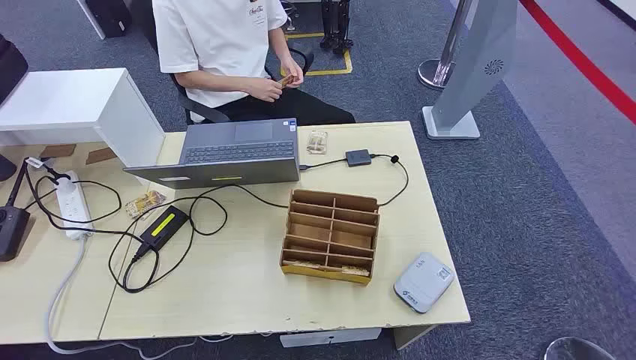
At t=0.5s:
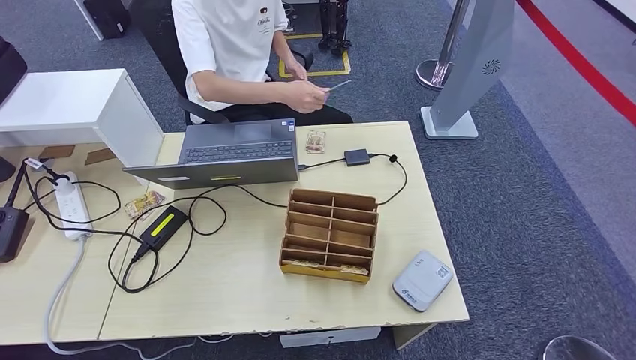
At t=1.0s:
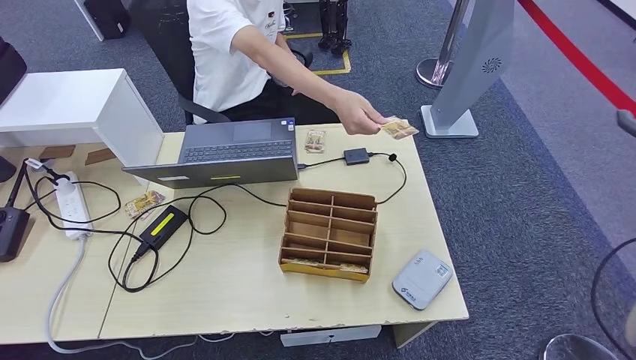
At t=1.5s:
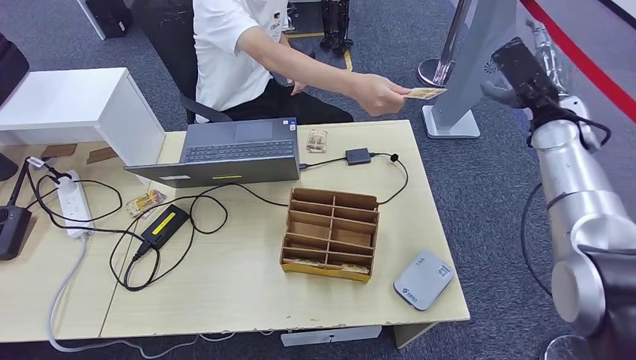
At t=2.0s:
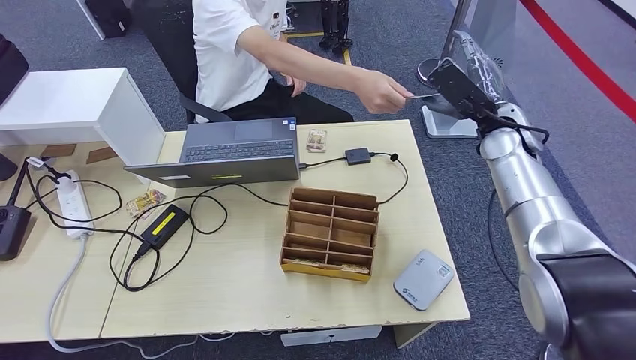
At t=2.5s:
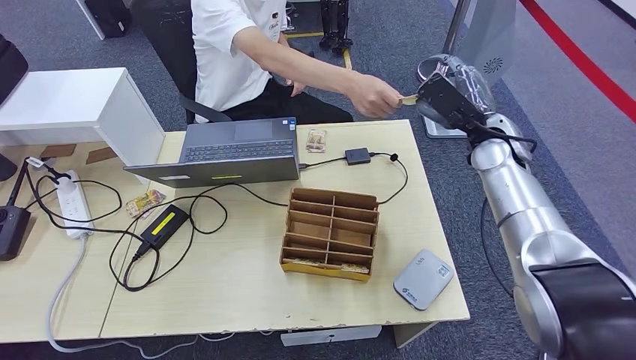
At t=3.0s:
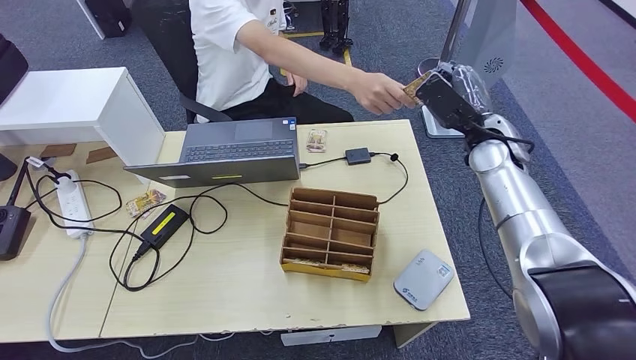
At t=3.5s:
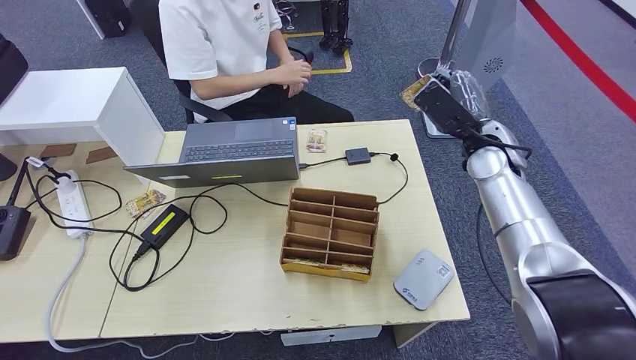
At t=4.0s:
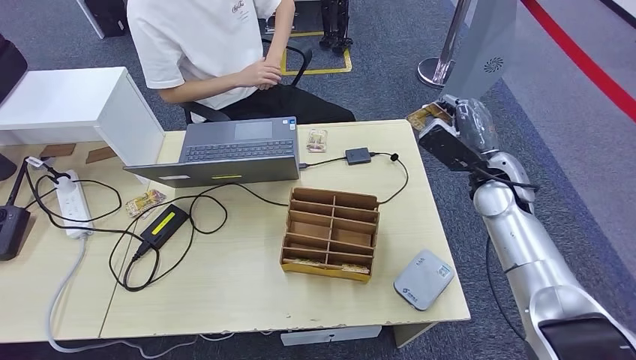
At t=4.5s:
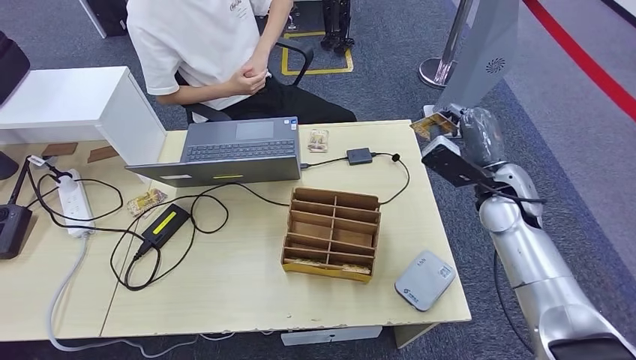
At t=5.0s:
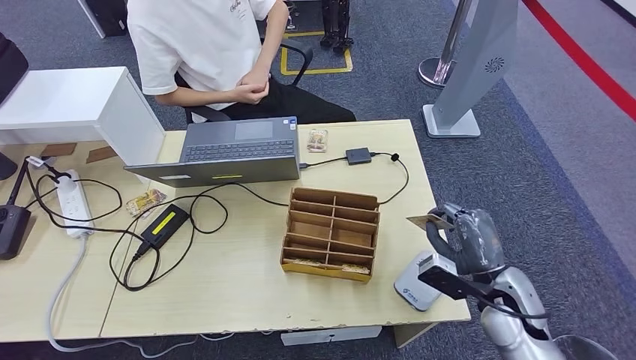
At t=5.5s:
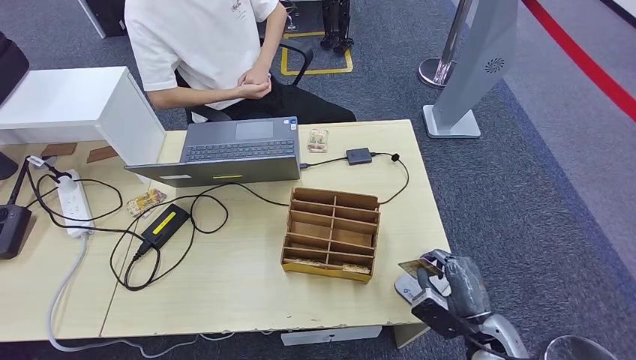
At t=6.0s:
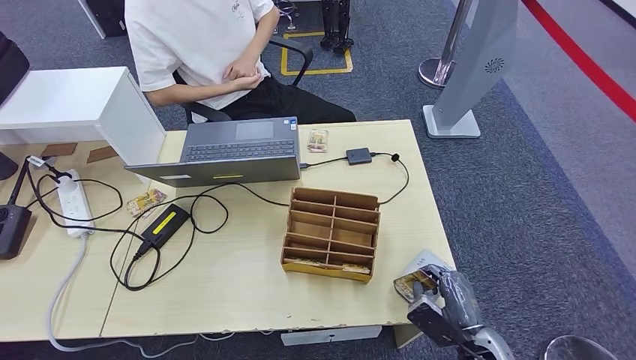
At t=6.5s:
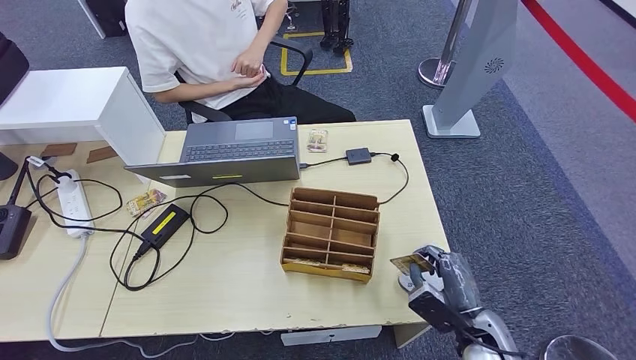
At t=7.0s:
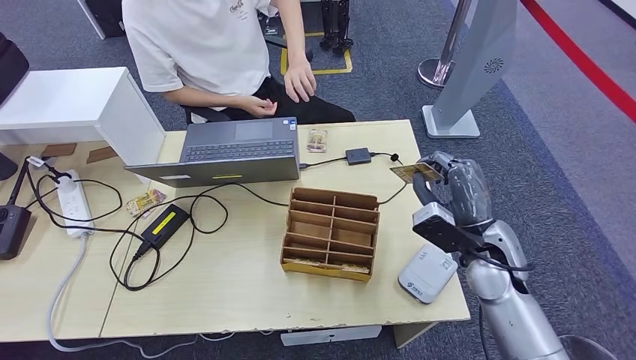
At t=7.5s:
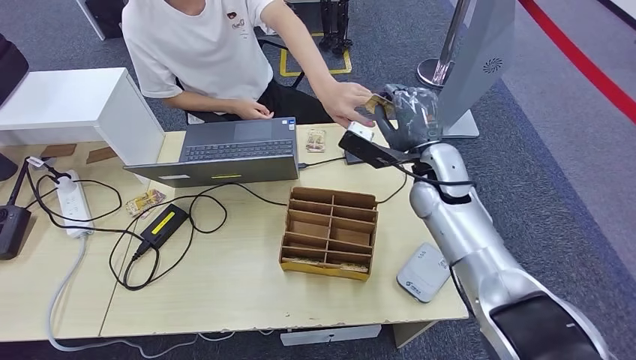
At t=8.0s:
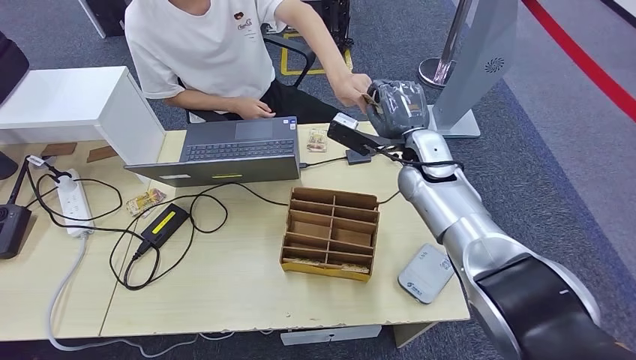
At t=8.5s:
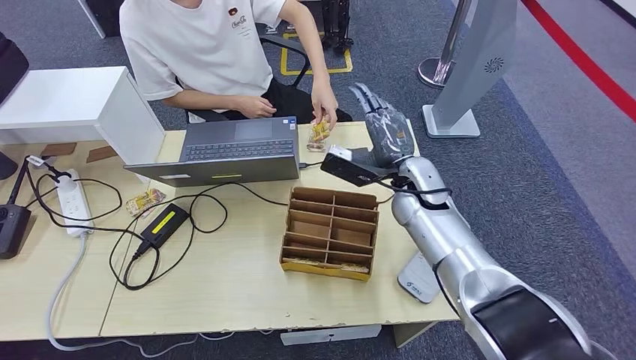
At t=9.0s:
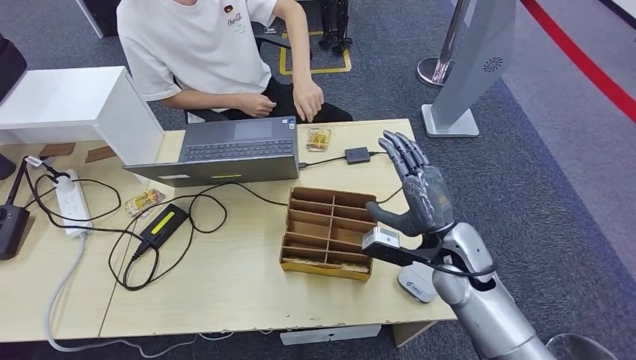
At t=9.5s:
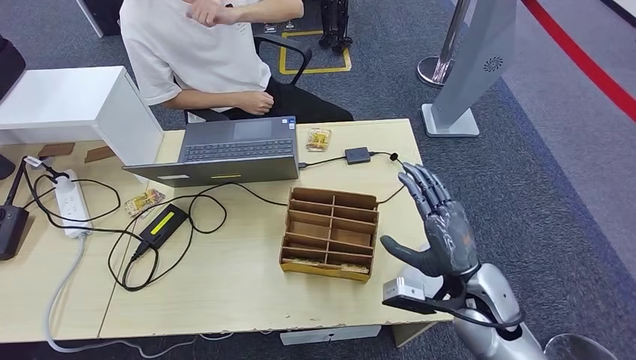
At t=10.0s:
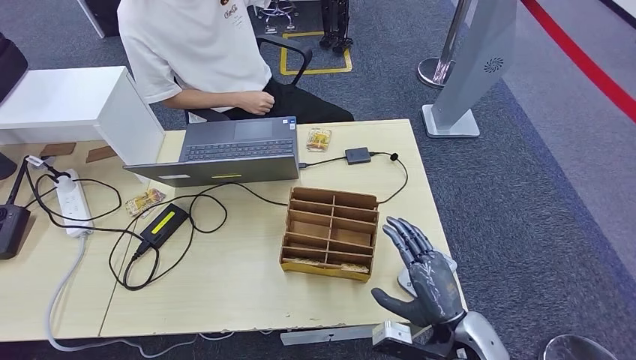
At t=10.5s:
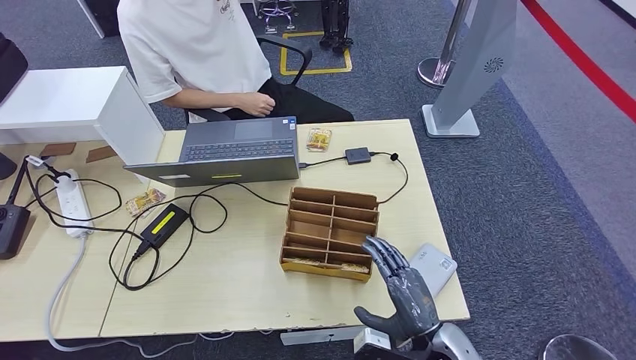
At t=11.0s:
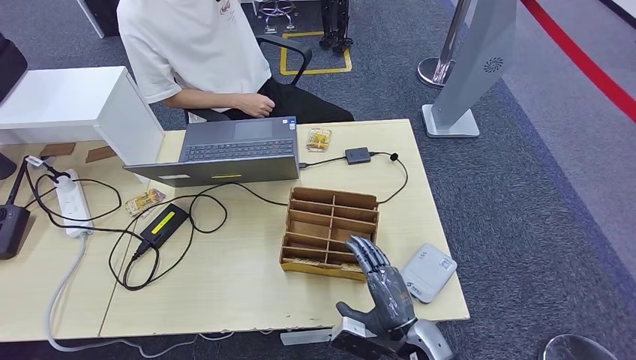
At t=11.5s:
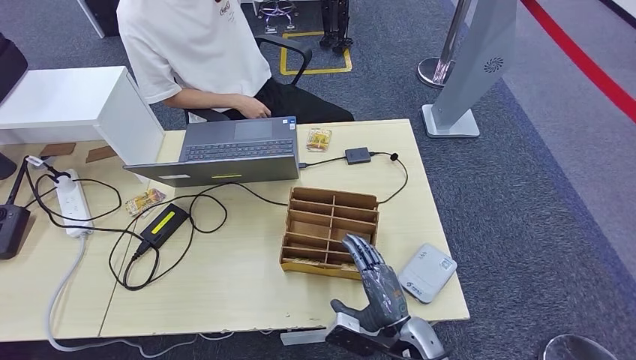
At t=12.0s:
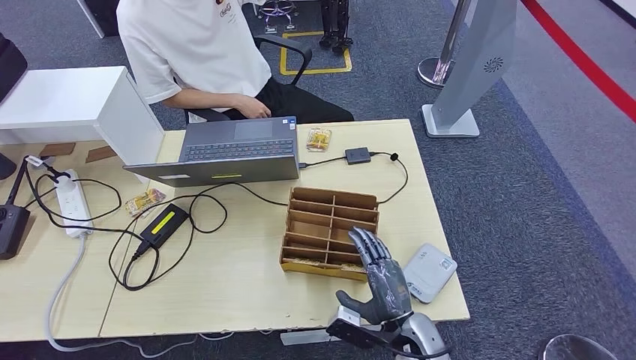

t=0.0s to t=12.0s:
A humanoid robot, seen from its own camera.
Step, t=0.0s to t=2.5s: Take the ID card from the person's hand.
Step, t=3.0s to t=6.5s: Place the ID card on the card reader.
Step, t=7.0s to t=8.0s: Hand the ID card to the person.
t=2.0s to t=4.0s: The right hand goes approximately 10 cm backward and downward.
t=4.0s to t=6.0s: The right hand shifts some 30 cm backward and downward.
t=6.0s to t=8.0s: The left hand moves forward, some 5 cm, while the right hand heads forward and upward, covering approximately 35 cm.
t=8.0s to t=10.0s: The right hand heads backward and downward, covering roughly 30 cm.
t=10.0s to t=12.0s: The right hand goes approximately 10 cm to the left and downward.

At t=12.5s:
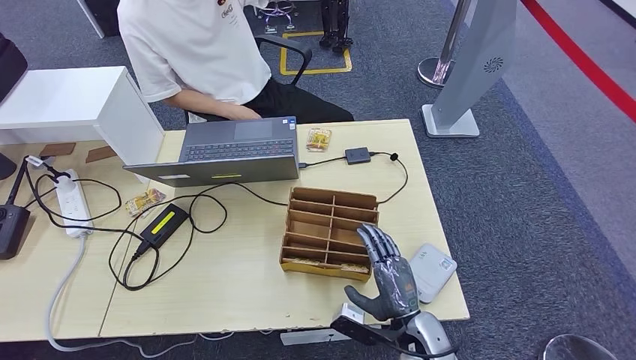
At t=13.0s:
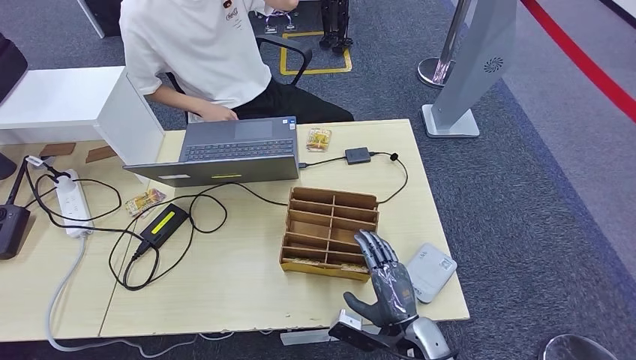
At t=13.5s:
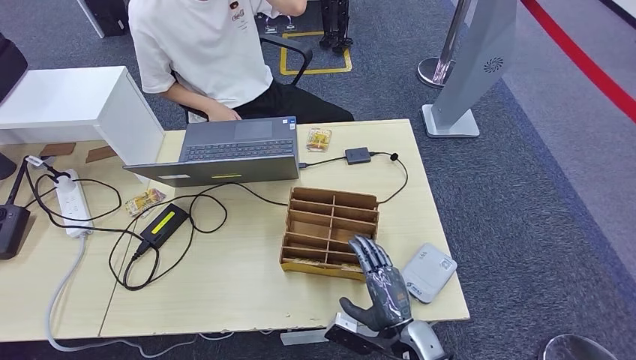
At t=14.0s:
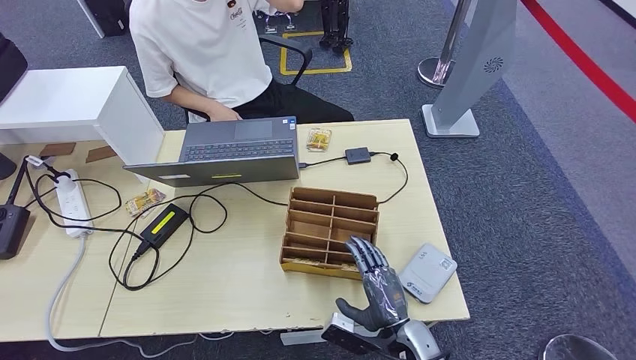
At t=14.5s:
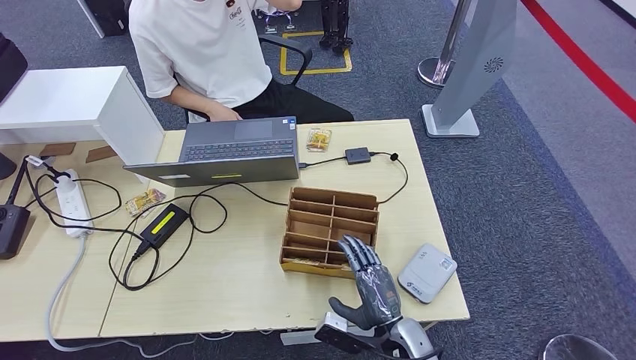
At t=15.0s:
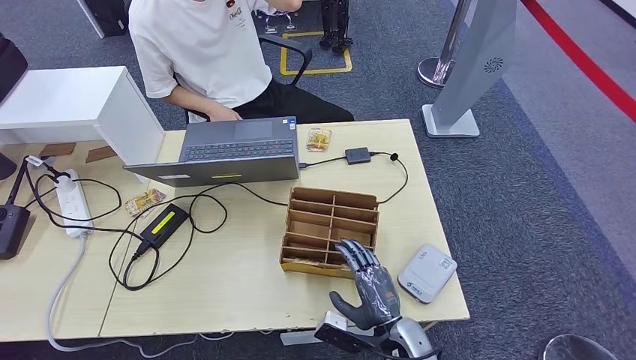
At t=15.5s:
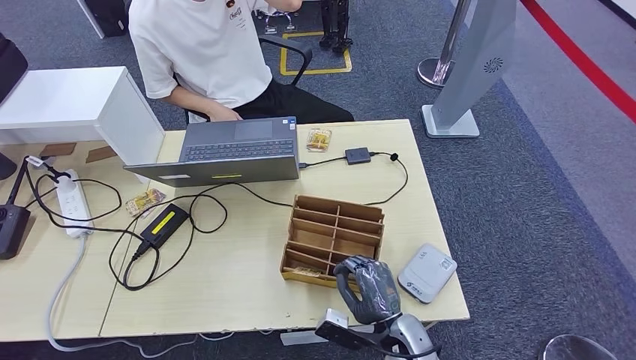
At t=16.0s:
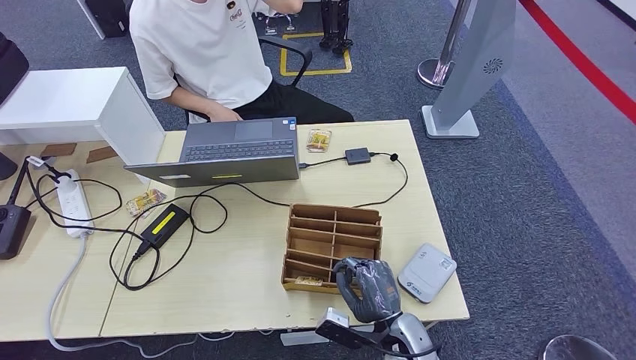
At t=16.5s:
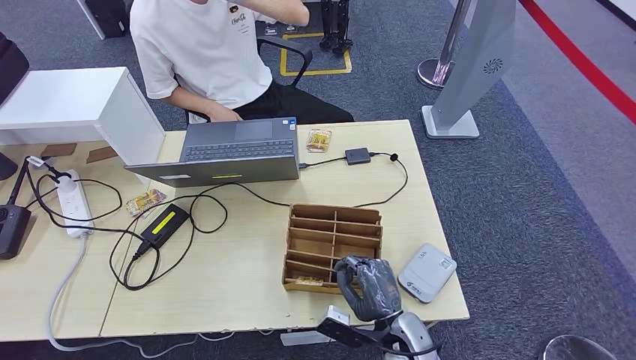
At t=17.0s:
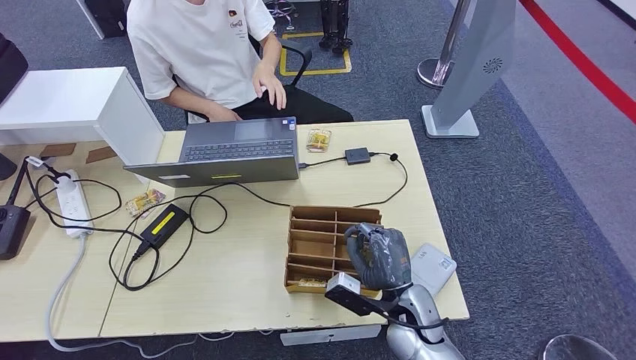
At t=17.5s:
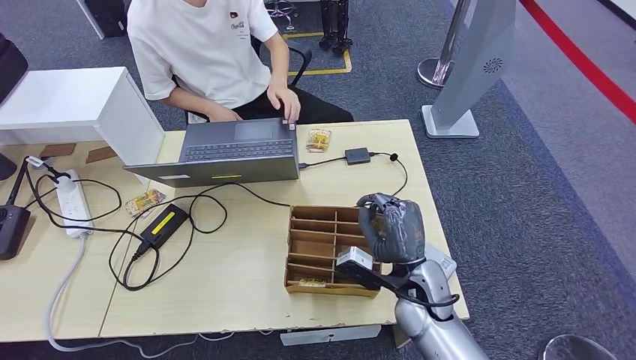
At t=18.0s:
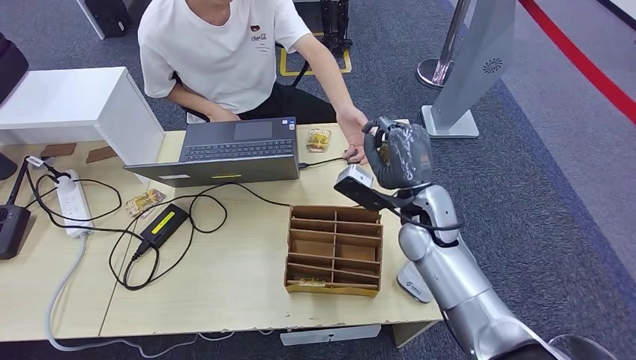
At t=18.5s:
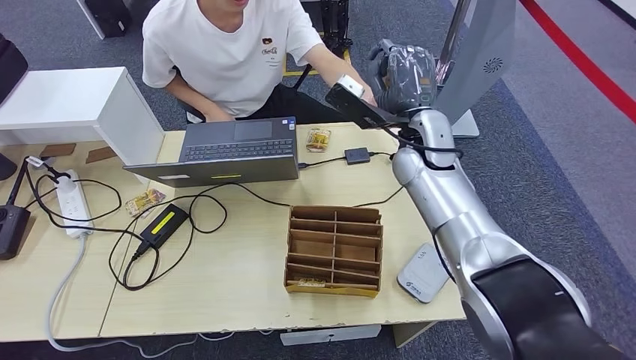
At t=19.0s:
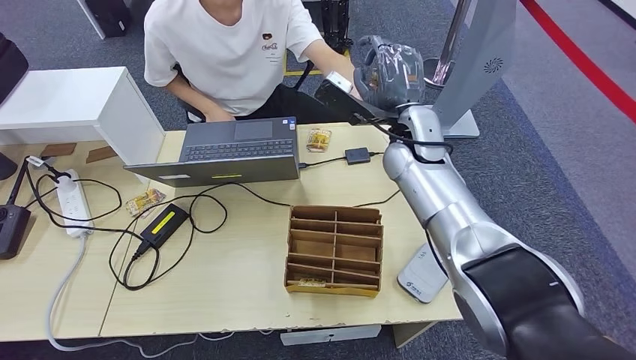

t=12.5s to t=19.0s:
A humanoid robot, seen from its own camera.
Step, t=12.5s to t=17.5s: Pick up the room key from the key card box.
Step, t=18.0s to t=19.0s: Hand the room key to the person.
t=12.5s to t=14.5s: The hands make only small movements.
t=14.5s to t=17.0s: The right hand shifts about 5 cm forward and upward.
t=17.0s to t=19.0s: The right hand heads upward and forward, covering about 30 cm.

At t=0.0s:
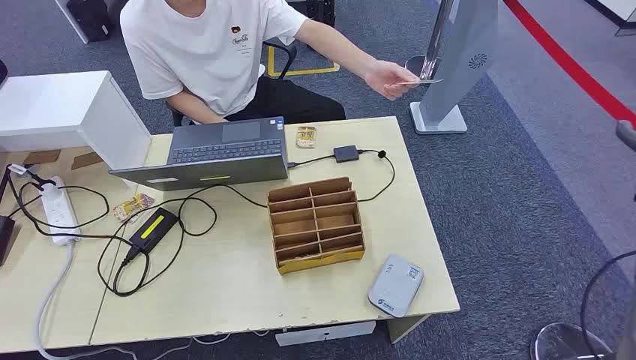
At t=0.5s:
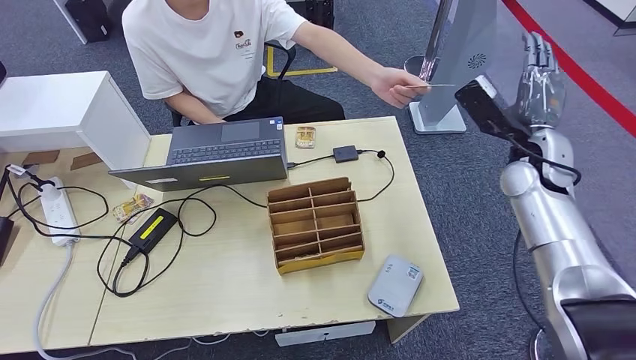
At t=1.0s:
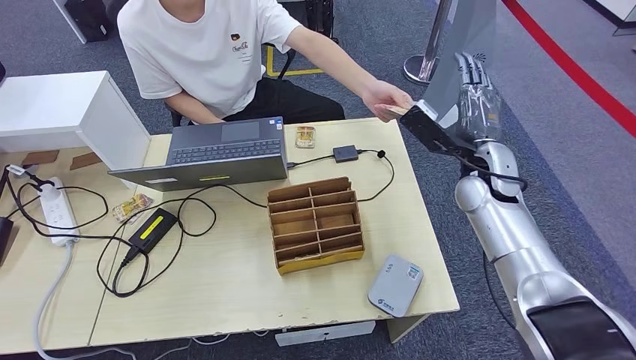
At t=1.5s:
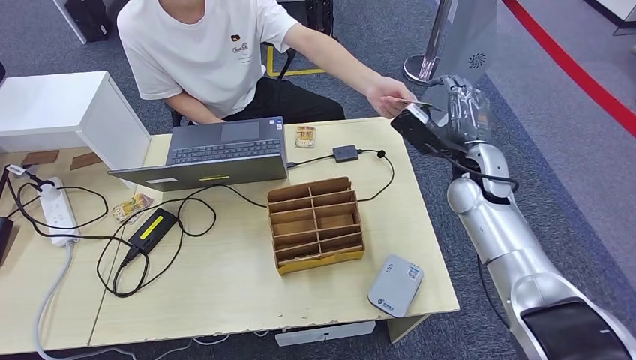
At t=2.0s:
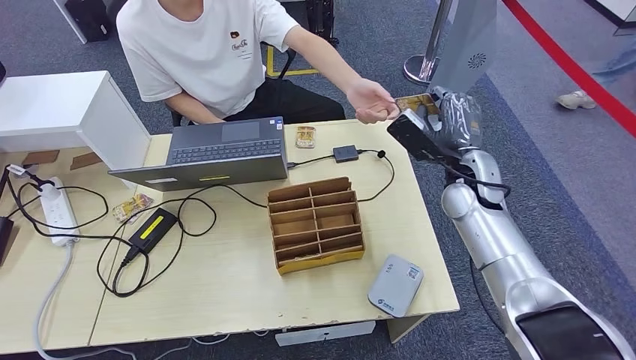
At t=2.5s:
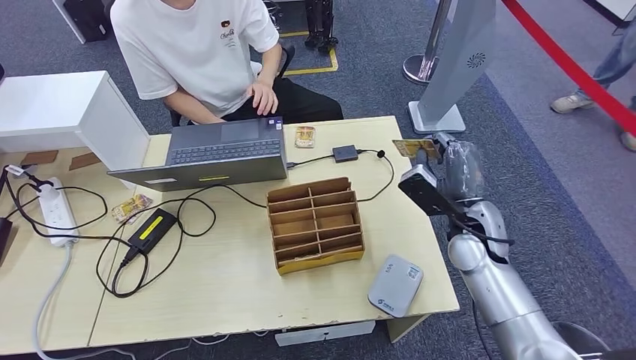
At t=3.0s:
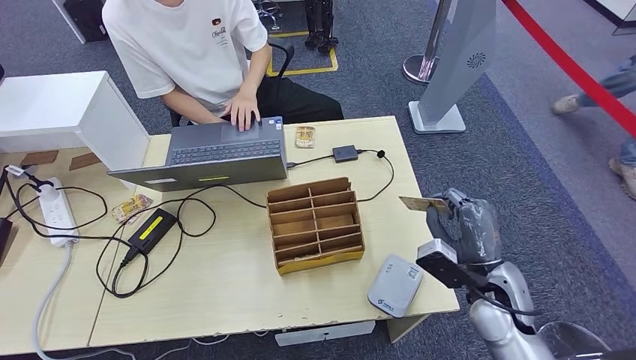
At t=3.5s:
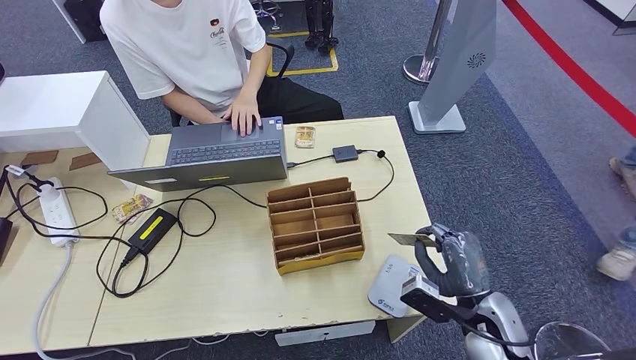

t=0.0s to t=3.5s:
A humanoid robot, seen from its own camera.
Step, t=0.0s to t=2.0s: Take the ID card from the person's hand.
t=2.0s to t=3.5s: The right hand heads backward and downward, covering about 25 cm.
